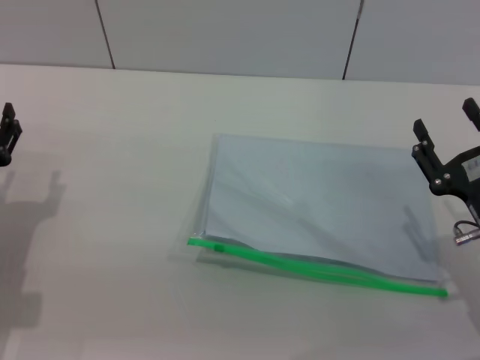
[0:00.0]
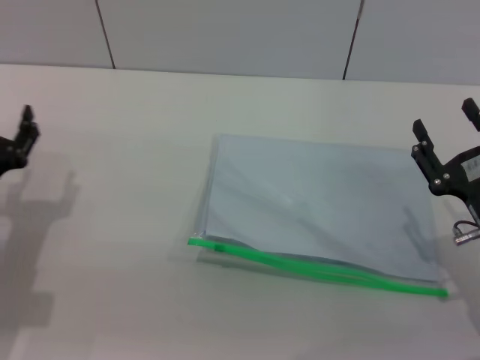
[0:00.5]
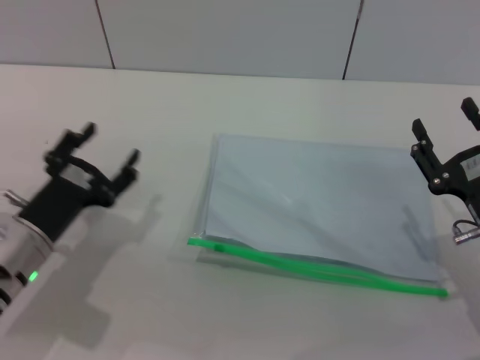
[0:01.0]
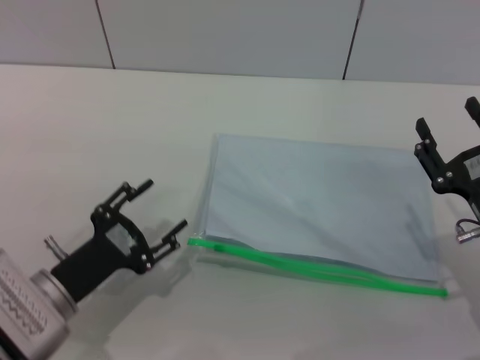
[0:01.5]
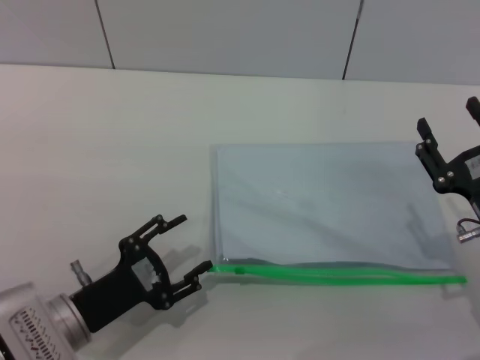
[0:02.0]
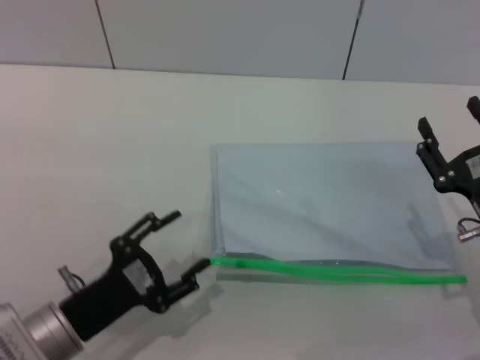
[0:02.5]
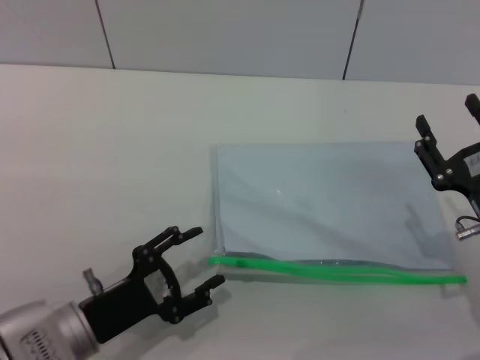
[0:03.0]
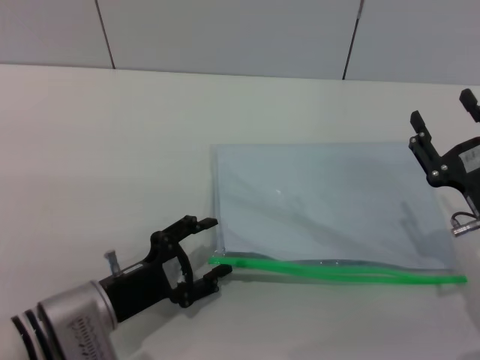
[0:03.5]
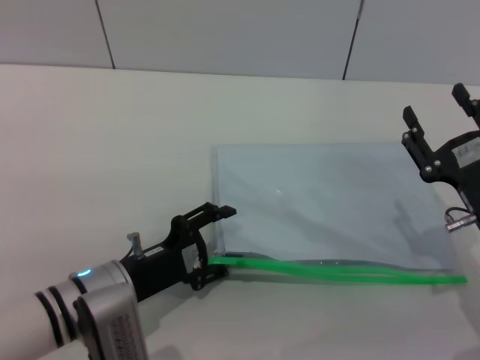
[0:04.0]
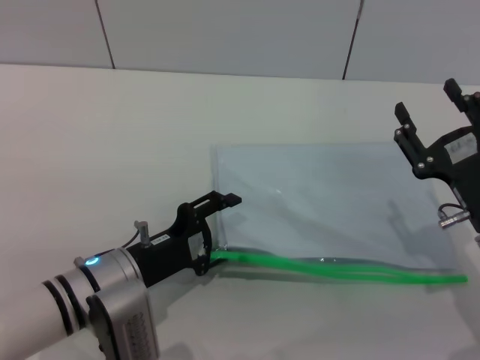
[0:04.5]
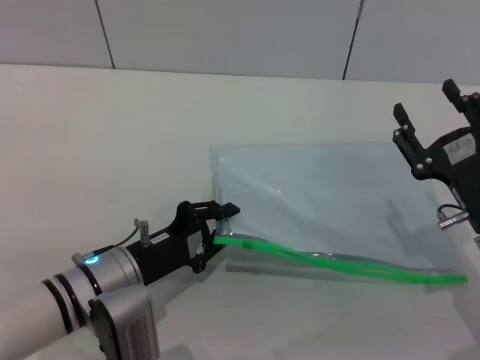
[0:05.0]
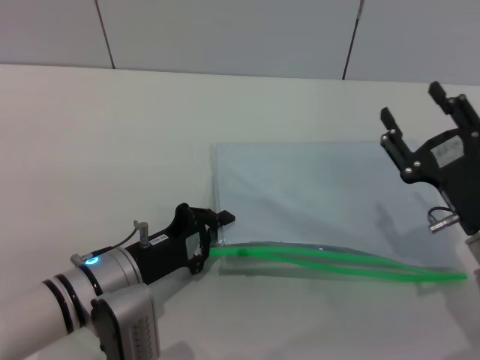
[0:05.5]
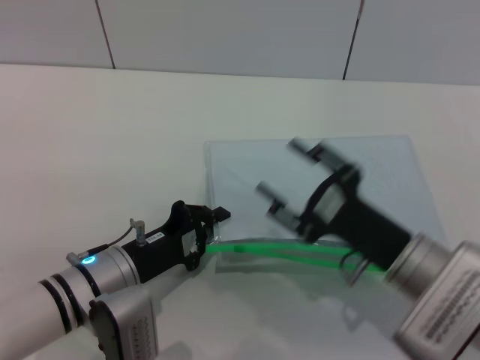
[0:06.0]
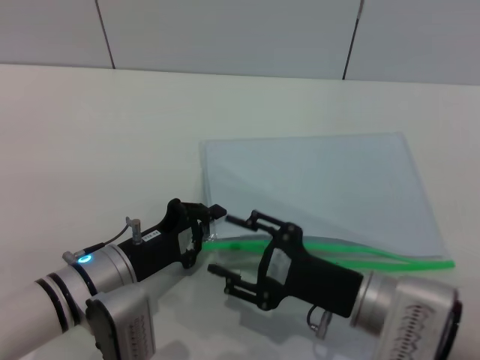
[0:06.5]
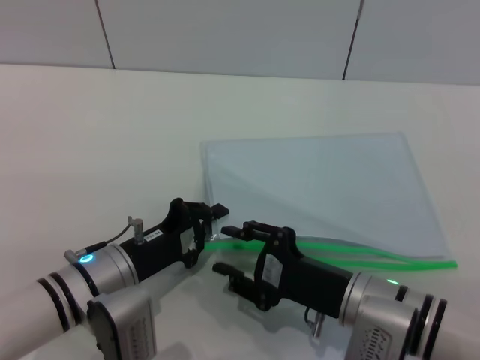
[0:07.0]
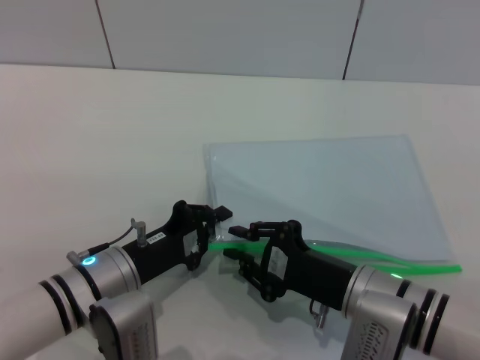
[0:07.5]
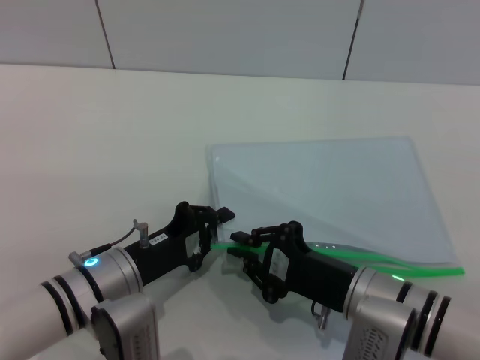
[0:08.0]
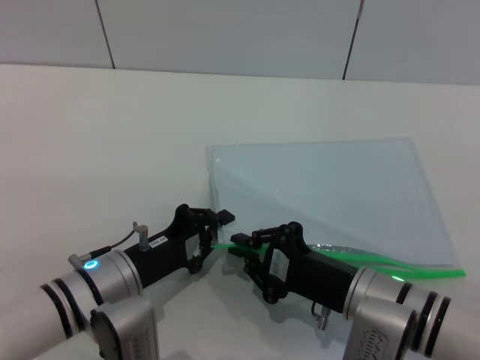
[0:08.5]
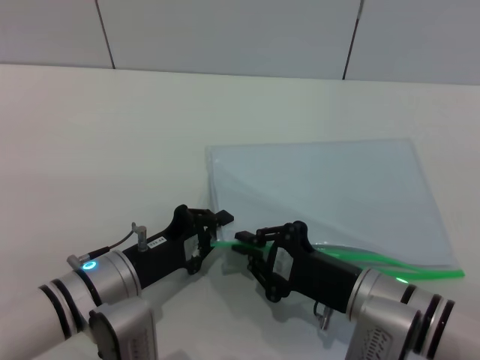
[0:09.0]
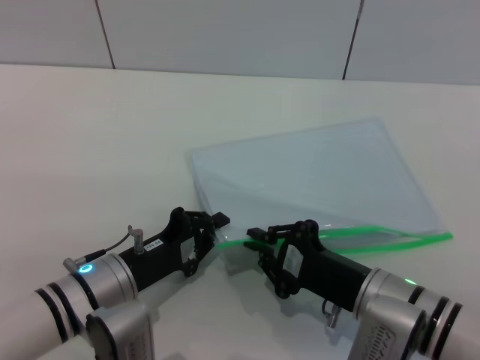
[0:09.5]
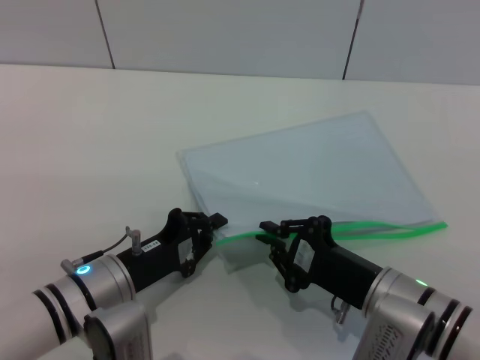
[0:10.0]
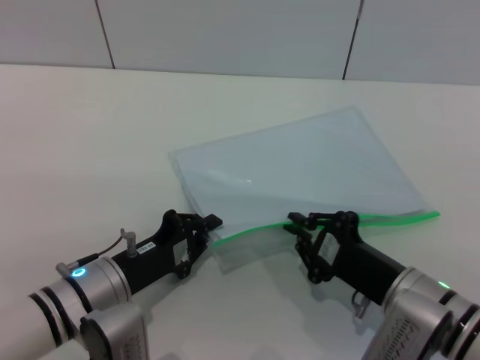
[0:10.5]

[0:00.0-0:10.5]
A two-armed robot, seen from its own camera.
Step, 0:00.0 to 0:05.5: Pick up the transparent plastic bag with the left gripper.
0:00.0 to 0:02.0: The left gripper shifts about 10 cm to the right and backward.
0:02.0 to 0:04.0: The left gripper changes place by some 5 cm.
0:04.0 to 0:06.5: The left gripper closes its fingers. The right gripper shifts roughly 10 cm to the left.
0:06.5 to 0:08.5: The right gripper closes its fingers.
0:08.5 to 0:10.5: There are only small adjustments of the grippers.

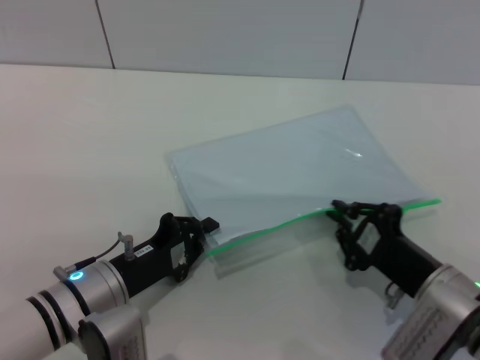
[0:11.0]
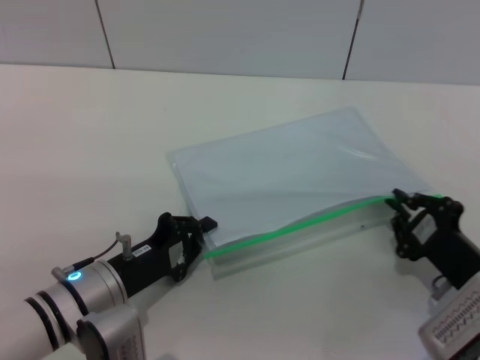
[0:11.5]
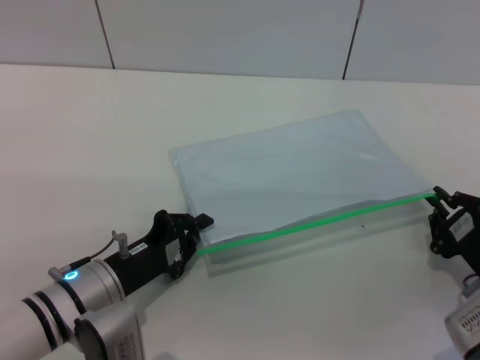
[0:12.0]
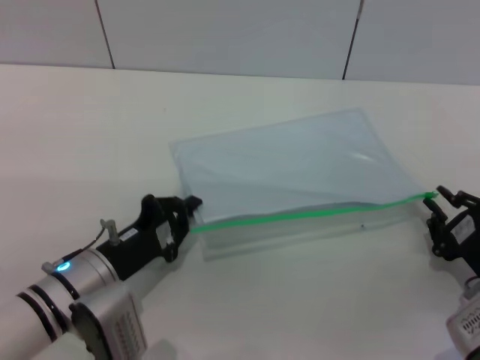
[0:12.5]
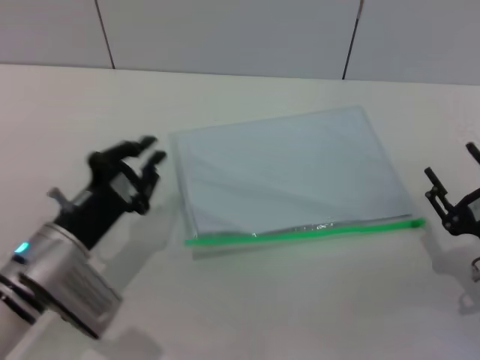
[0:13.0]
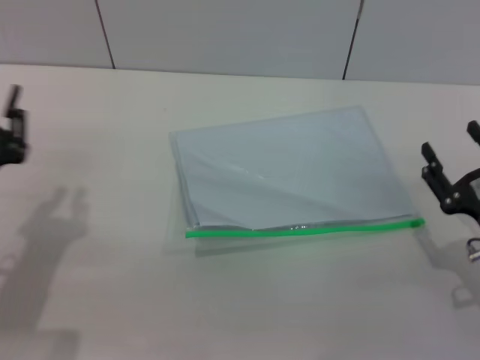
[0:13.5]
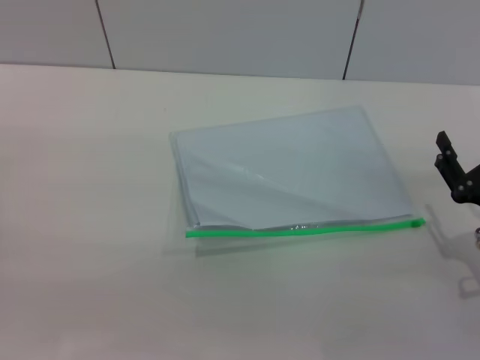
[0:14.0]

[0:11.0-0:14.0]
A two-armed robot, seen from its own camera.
0:11.0 to 0:12.5: The right gripper is displaced to the right by some 5 cm.
0:12.5 to 0:14.0: The left gripper shifts about 15 cm to the left, while the right gripper opens its fingers.
